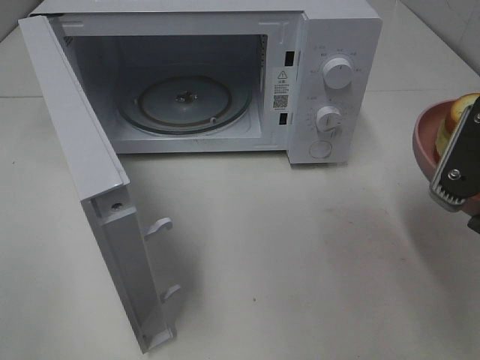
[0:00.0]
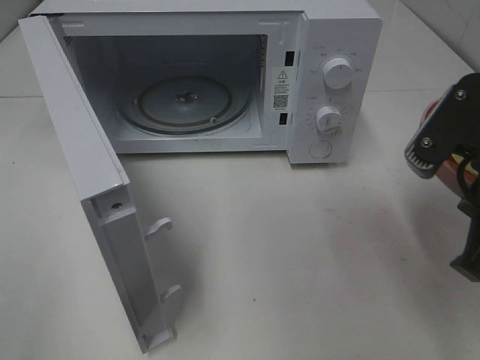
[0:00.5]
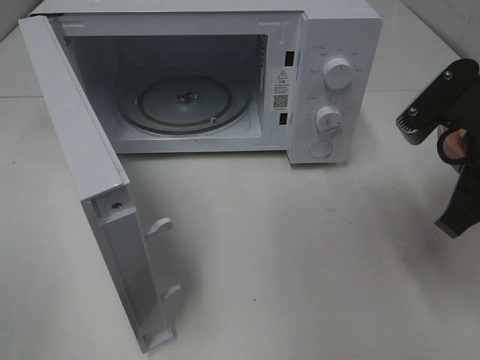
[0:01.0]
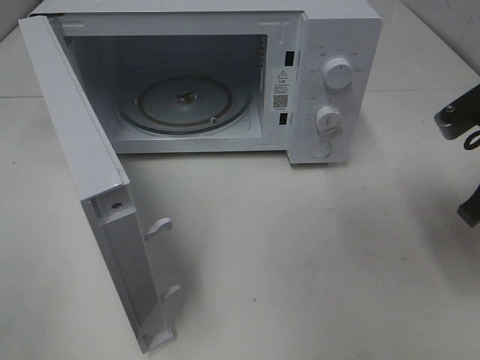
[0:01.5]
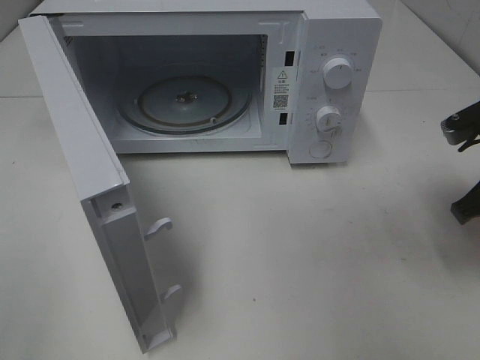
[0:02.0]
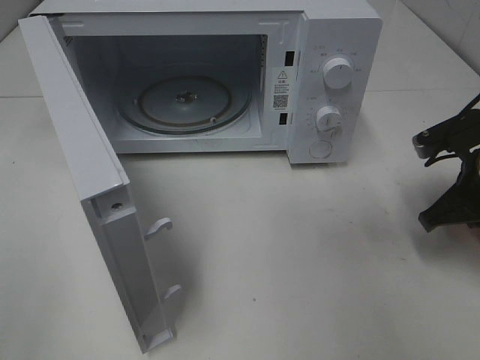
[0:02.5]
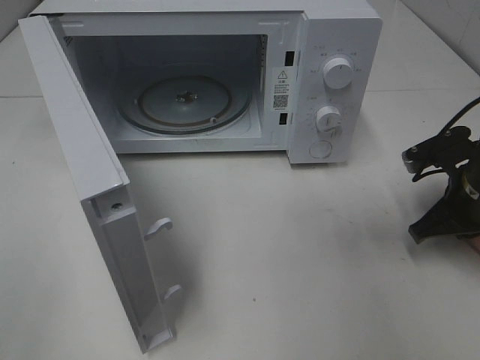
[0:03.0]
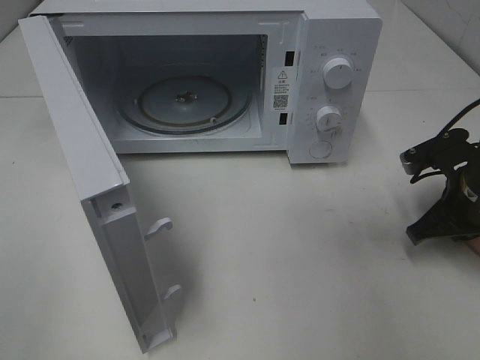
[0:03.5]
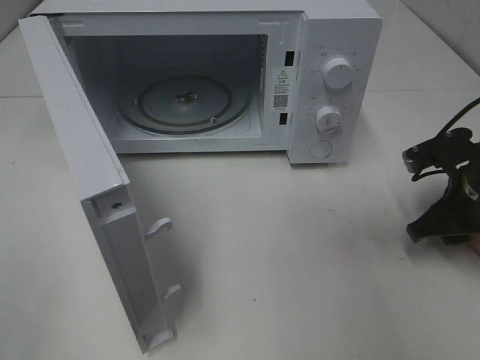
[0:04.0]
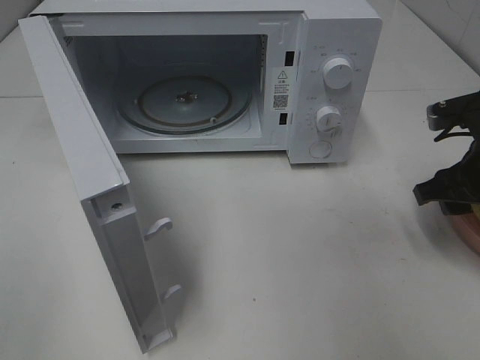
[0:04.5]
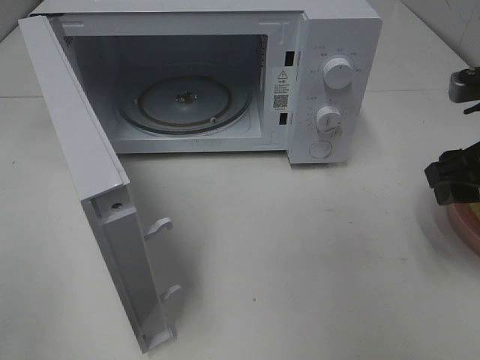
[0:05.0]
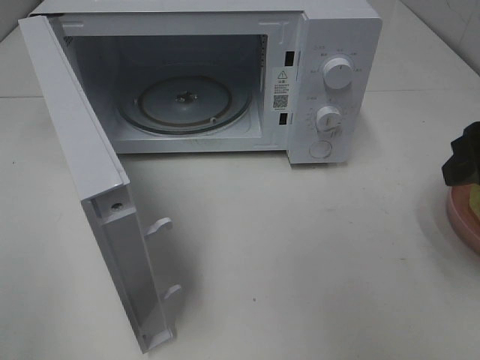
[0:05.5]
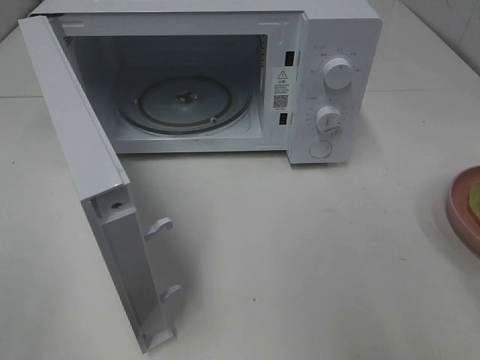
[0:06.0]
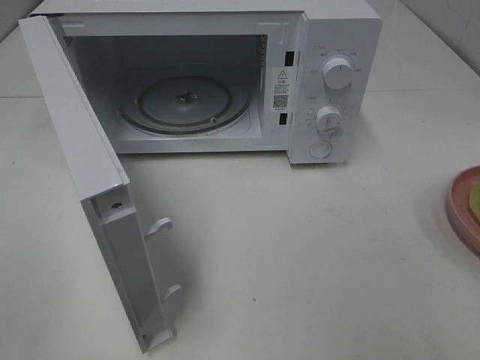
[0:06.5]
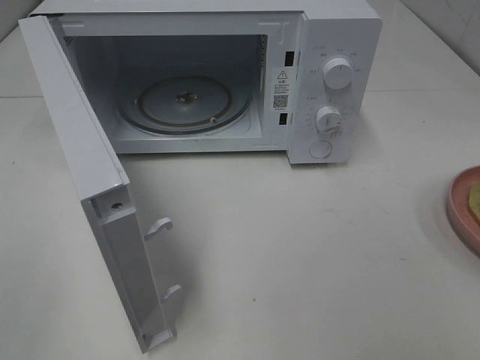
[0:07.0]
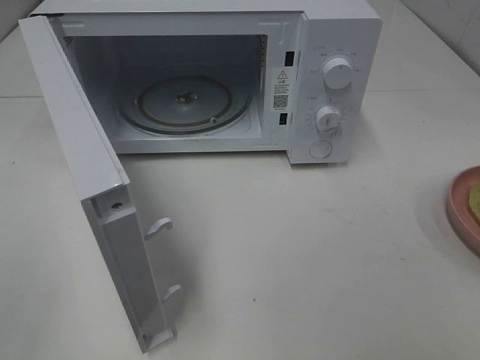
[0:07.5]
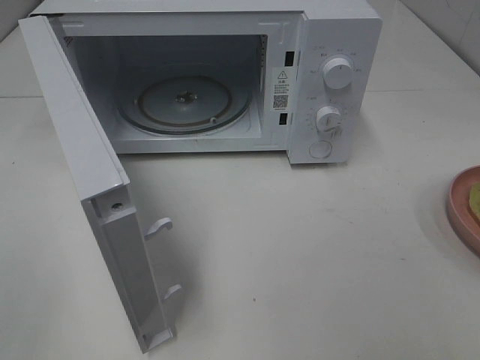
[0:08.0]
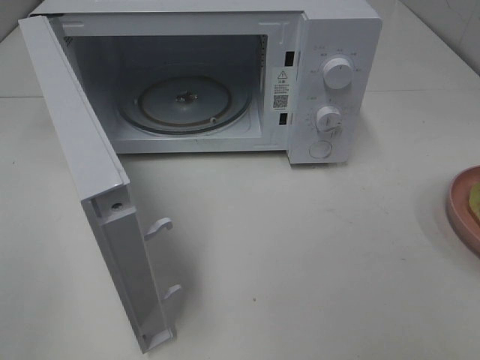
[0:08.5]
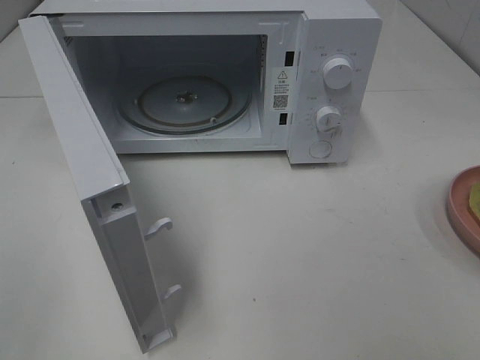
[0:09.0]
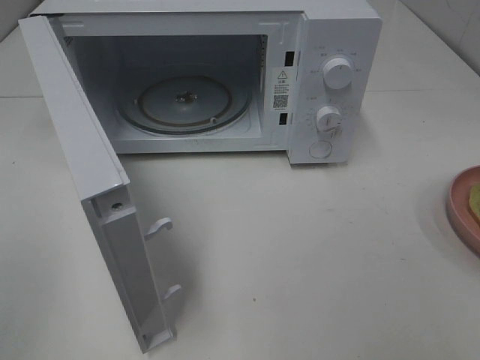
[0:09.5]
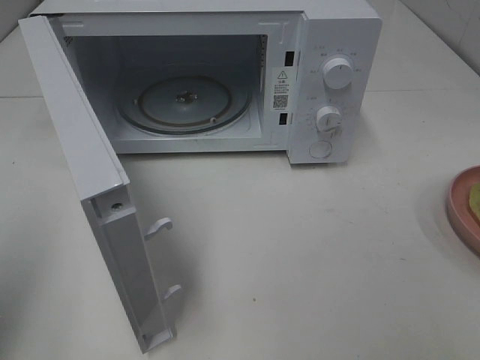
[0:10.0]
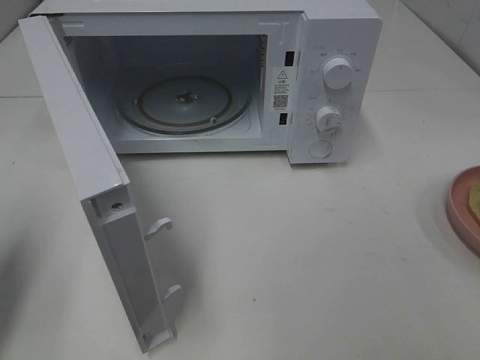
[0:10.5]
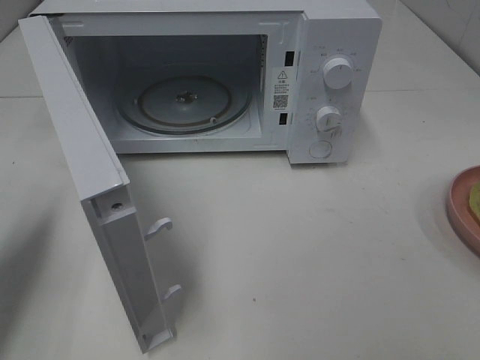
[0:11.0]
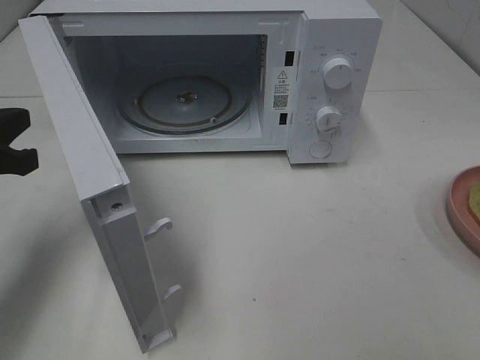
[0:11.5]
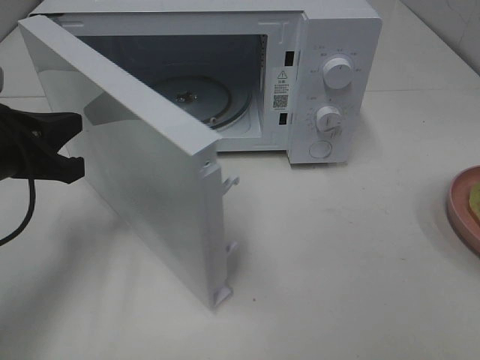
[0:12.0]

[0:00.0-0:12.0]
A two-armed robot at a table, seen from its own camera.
Task of the whole recording: Heat Sandwich.
Step, 0:00.0 to 0:04.0: Right hand: place the plate on the table.
0:00.0 to 0:02.0: The right gripper travels forward, downward and to the right by some 15 cm.
0:02.0 to 0:04.0: The right gripper travels downward by approximately 5 cm, and opens.
0:04.0 to 0:06.0: The right gripper shifts approximately 25 cm upward and backward.
0:08.0 to 0:10.0: The left gripper heads forward, covering roughly 10 cm, and closes its fingers.
0:10.0 to 0:12.0: The left gripper shifts some 20 cm forward, downward and to the right.

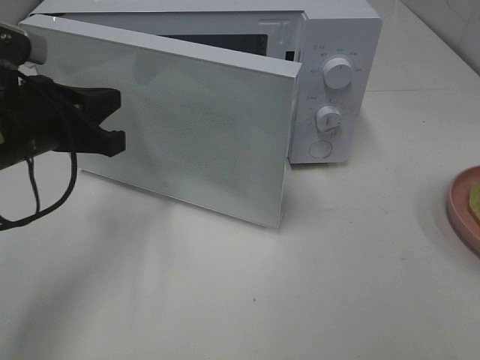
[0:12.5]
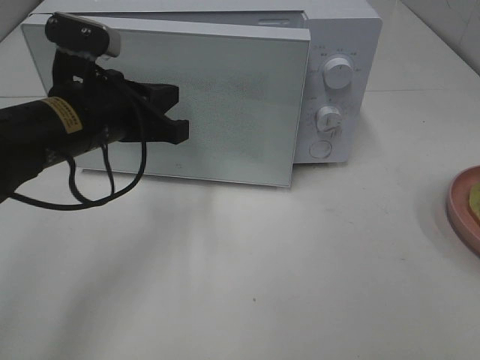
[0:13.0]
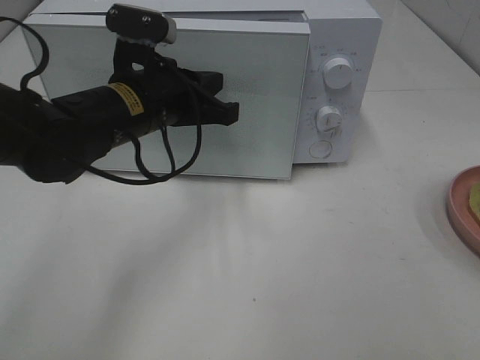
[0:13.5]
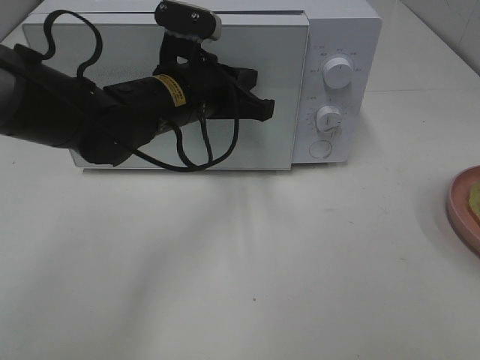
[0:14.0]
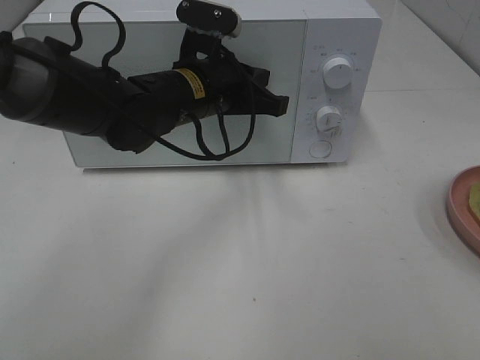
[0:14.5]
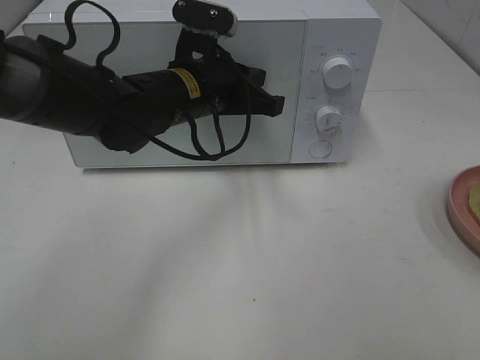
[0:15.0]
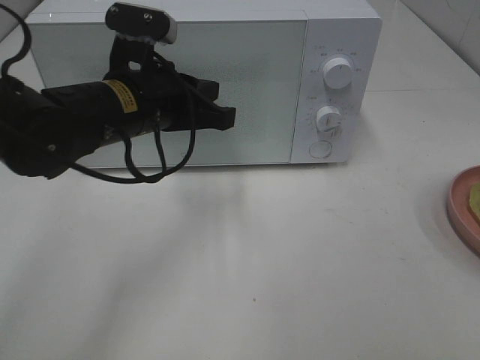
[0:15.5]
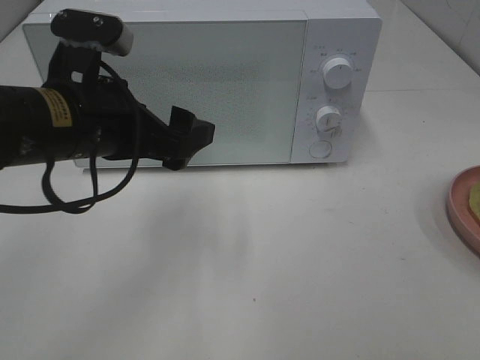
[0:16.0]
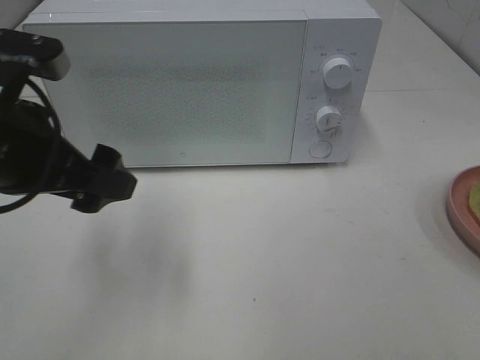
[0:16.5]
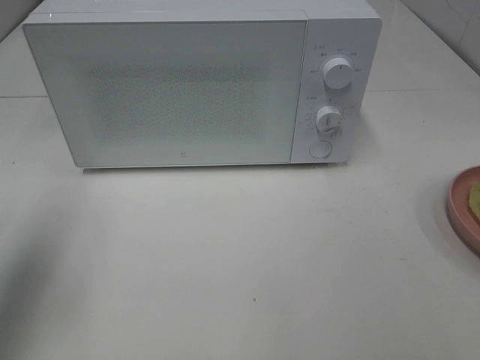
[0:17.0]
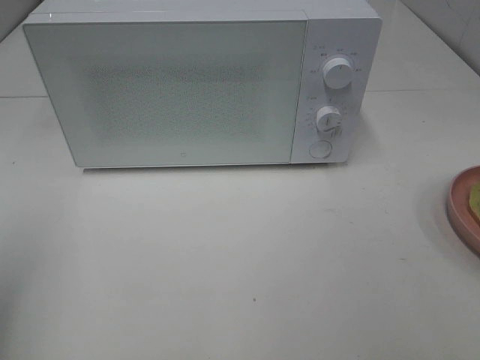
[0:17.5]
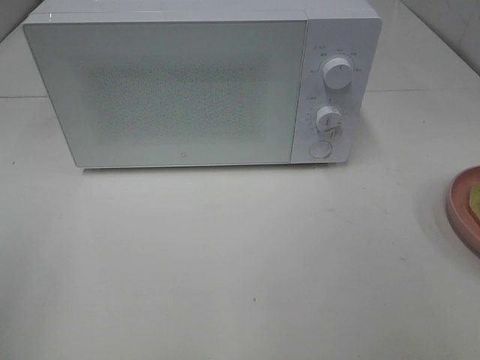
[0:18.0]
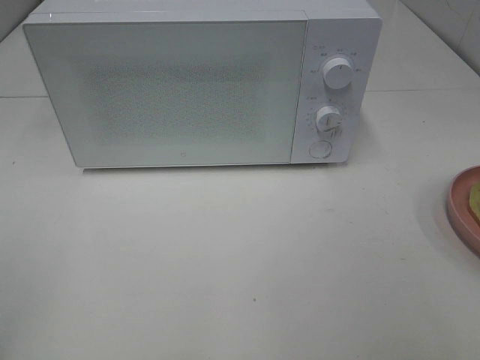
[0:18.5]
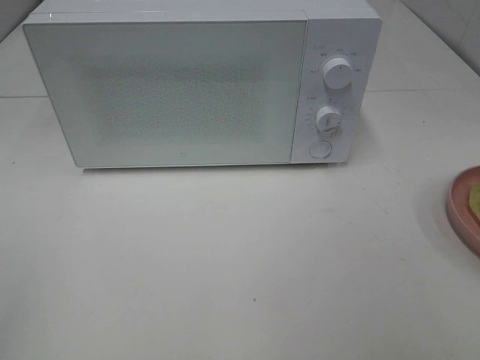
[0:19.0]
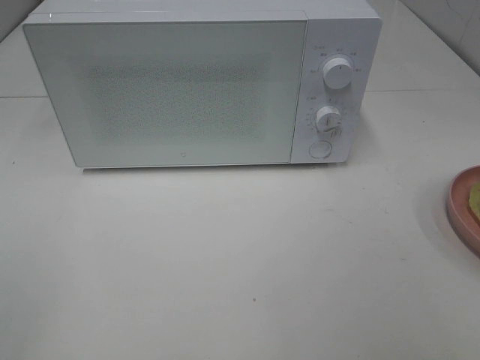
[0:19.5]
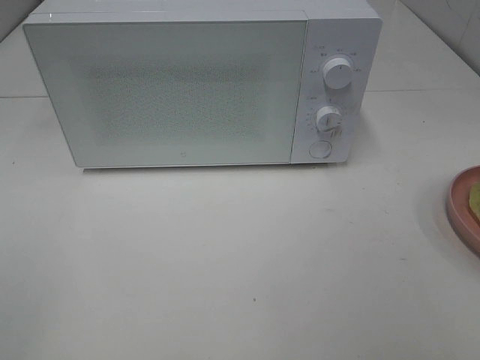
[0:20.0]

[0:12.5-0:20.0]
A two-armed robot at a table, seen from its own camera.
Task of the whole recording: Heat Sandwich.
Step, 0:12.5 to 0:15.5: Left hand: close the microwave door.
0:12.5 to 0:14.5: The left gripper goes some 20 cm to the right and forward.
0:14.5 to 0:16.5: The left gripper travels to the left, backward and upward by roughly 20 cm, and opens its fingers.
0:16.5 to 0:18.0: The left gripper moves backward and to the left, roughly 20 cm.
